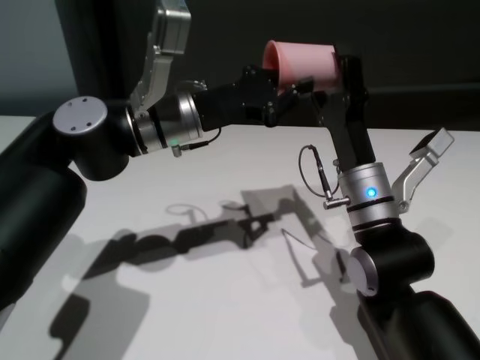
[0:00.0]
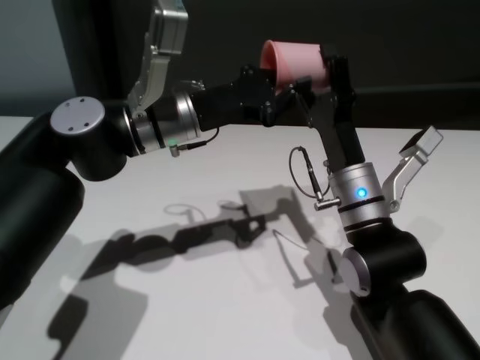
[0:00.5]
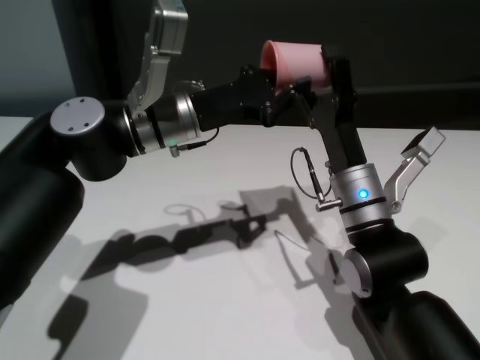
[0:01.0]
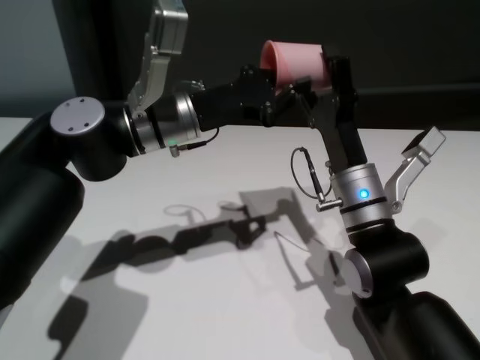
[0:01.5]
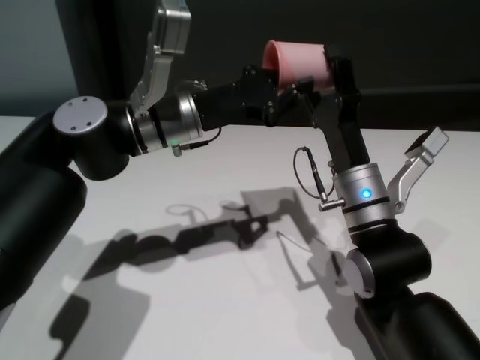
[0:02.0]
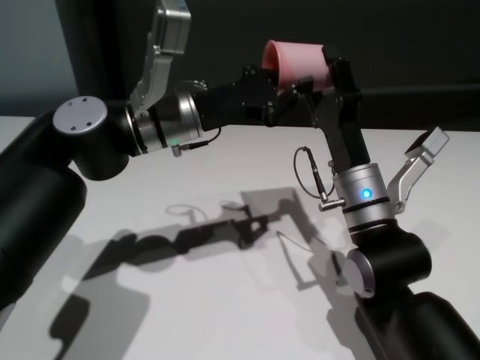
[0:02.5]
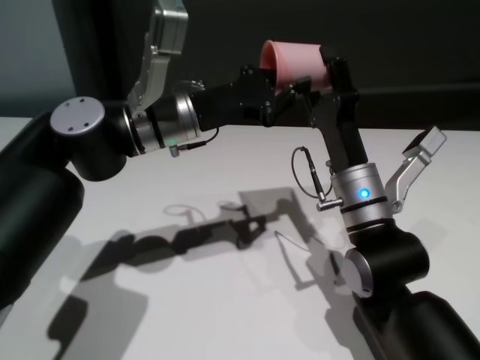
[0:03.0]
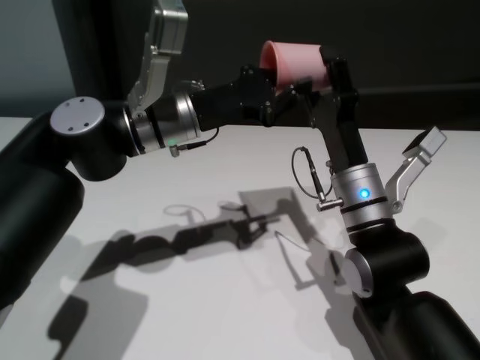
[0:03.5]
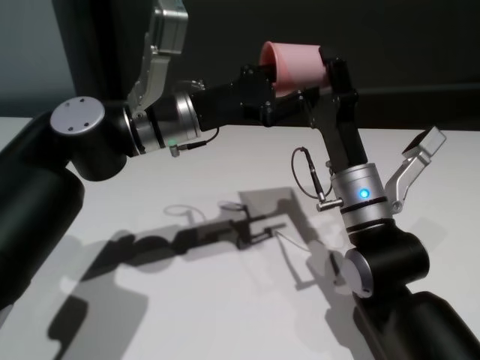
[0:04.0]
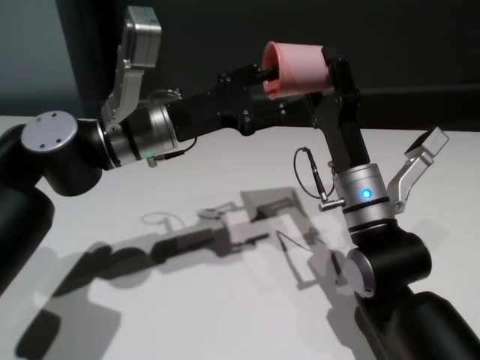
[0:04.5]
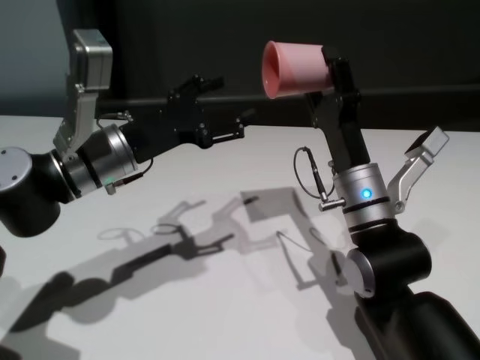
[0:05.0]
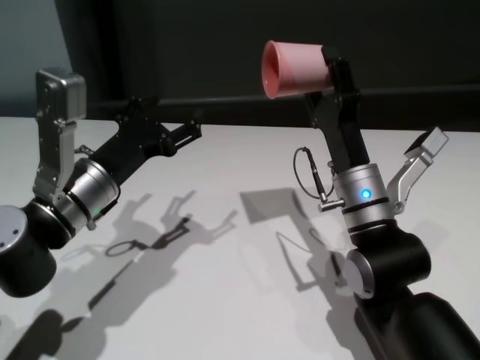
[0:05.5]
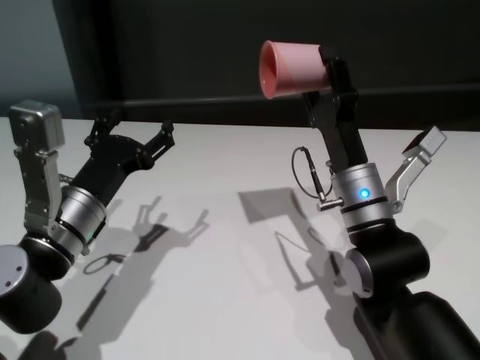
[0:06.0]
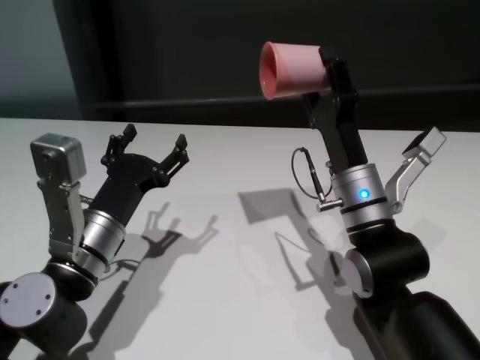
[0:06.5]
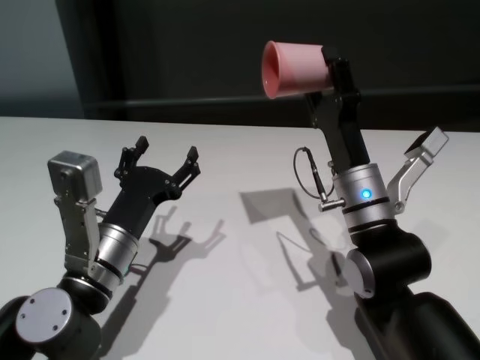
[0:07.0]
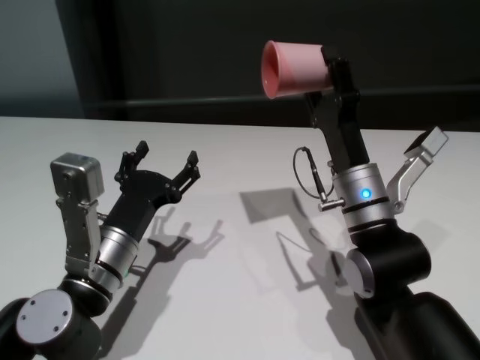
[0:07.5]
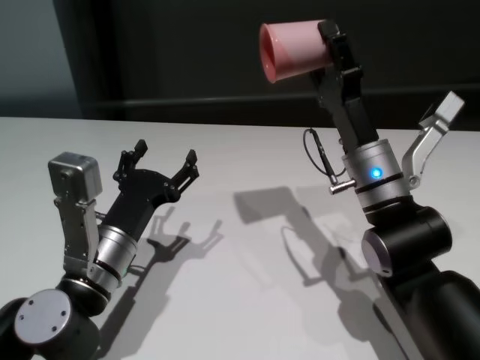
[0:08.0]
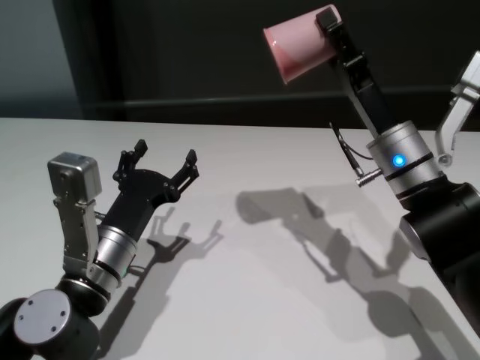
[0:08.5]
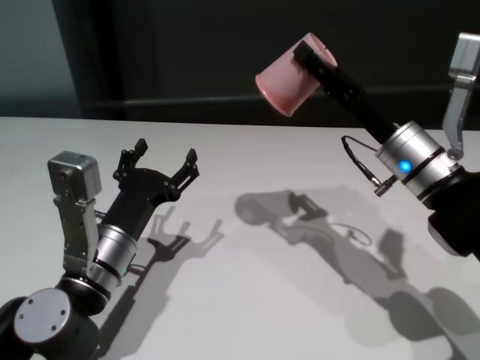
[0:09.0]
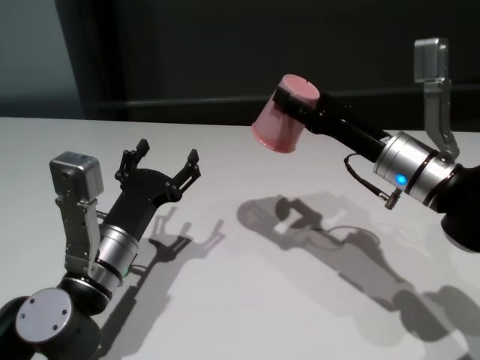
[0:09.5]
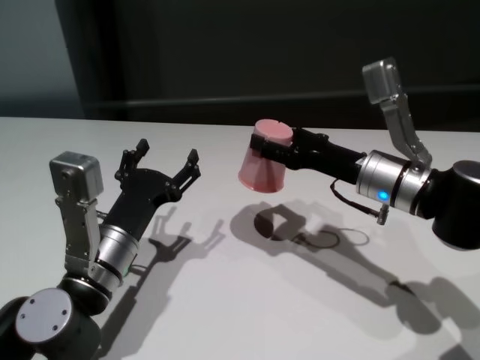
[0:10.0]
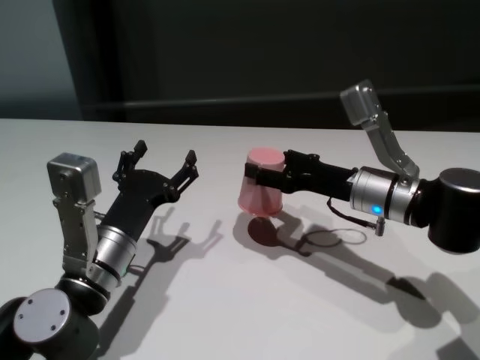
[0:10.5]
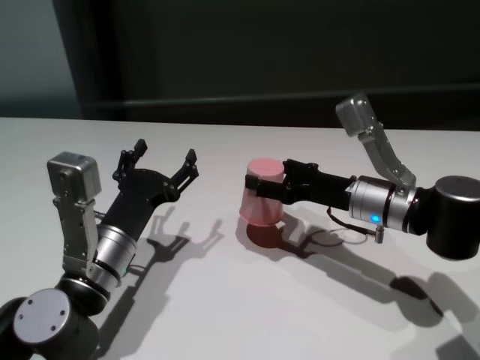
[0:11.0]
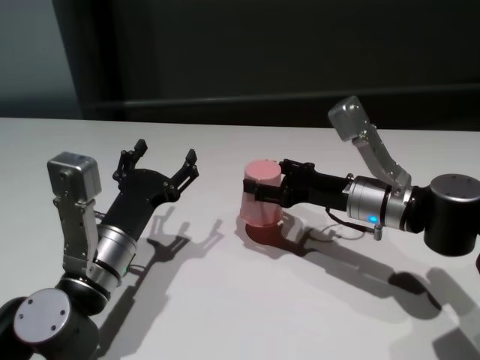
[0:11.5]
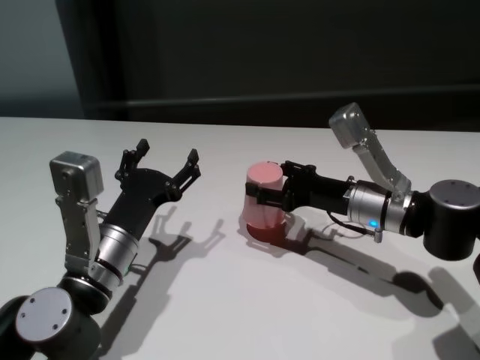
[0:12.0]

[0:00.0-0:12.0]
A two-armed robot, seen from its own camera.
Task of the whole recording: On the white table pick up the cup with one hand and transfer it to the other hand before turning it over.
Step, 0:00.0 to 0:04.5: Pass the cup to the right gripper.

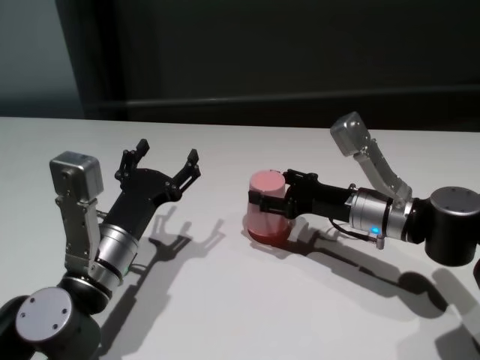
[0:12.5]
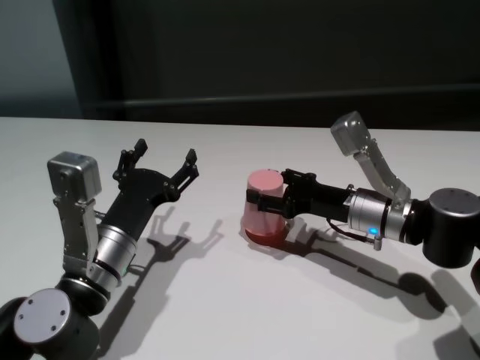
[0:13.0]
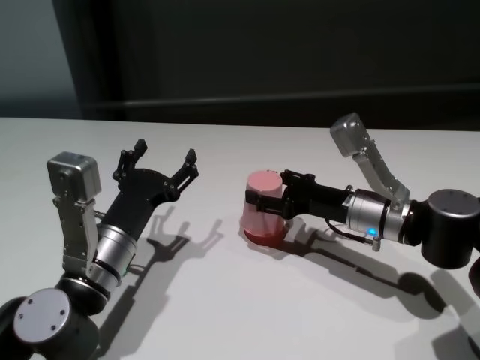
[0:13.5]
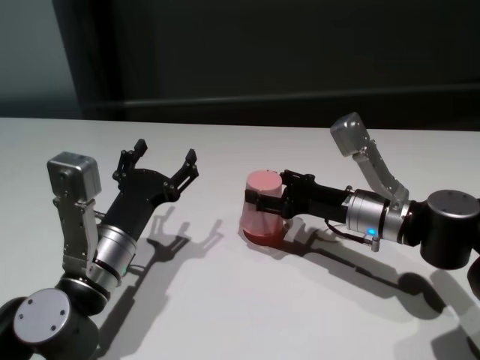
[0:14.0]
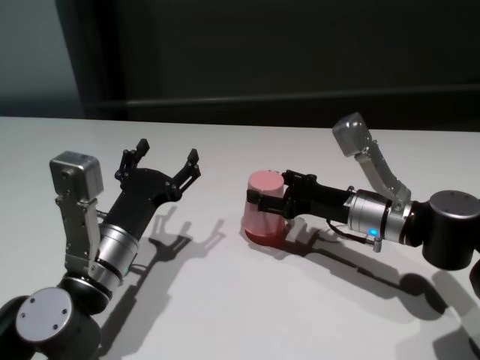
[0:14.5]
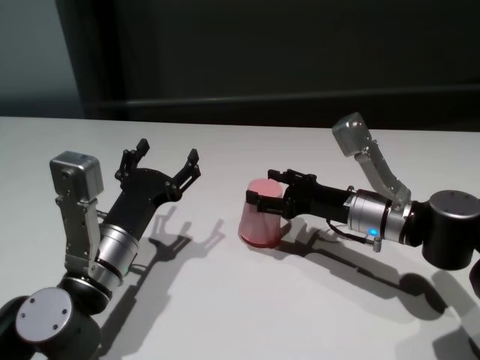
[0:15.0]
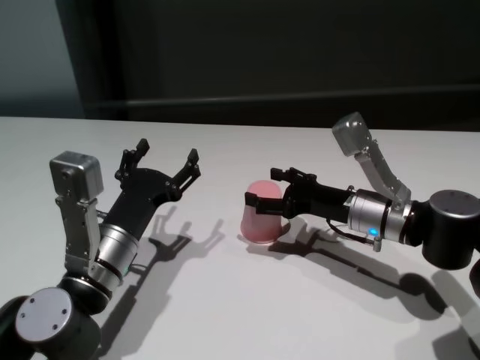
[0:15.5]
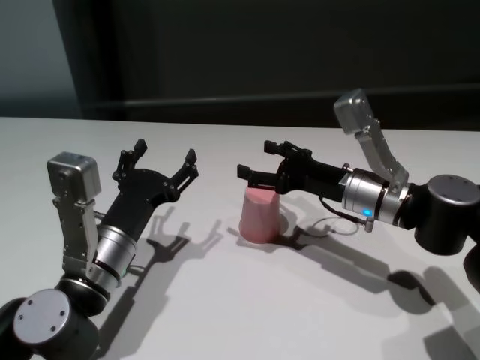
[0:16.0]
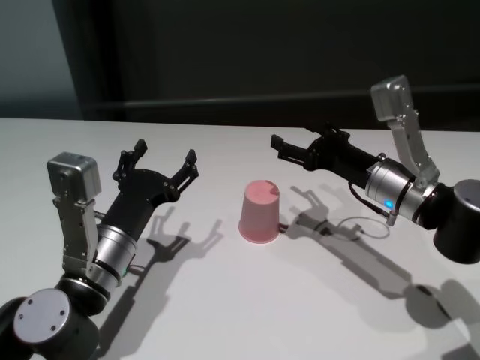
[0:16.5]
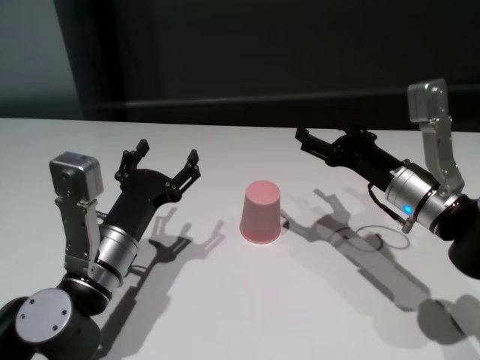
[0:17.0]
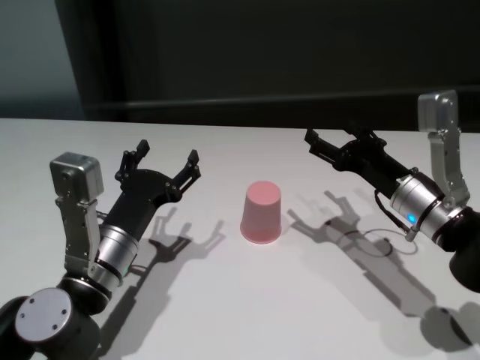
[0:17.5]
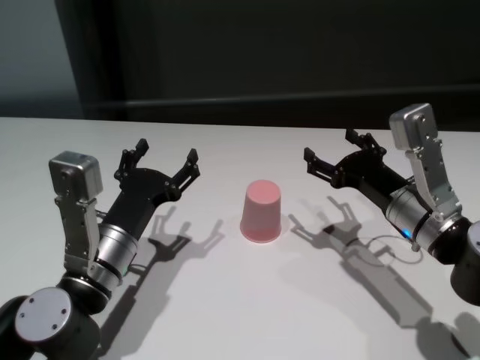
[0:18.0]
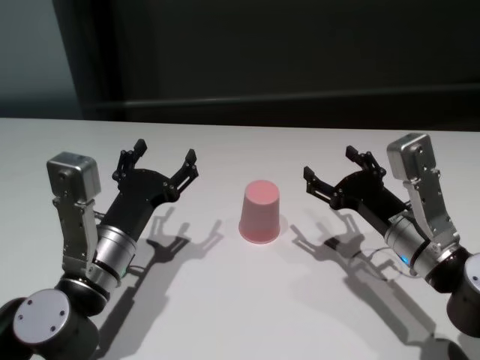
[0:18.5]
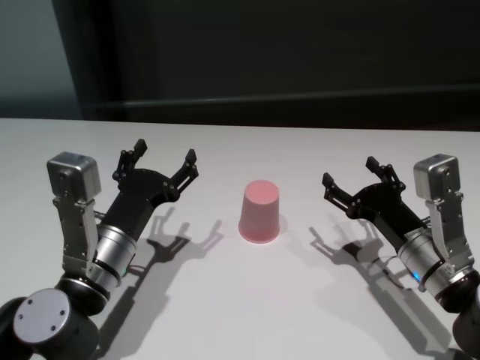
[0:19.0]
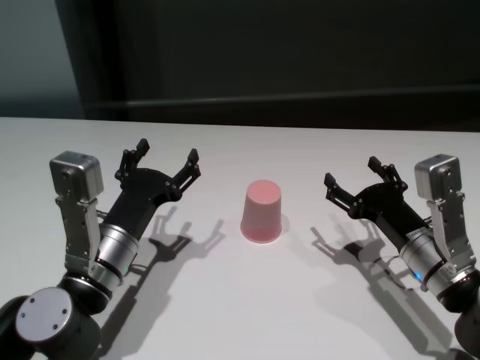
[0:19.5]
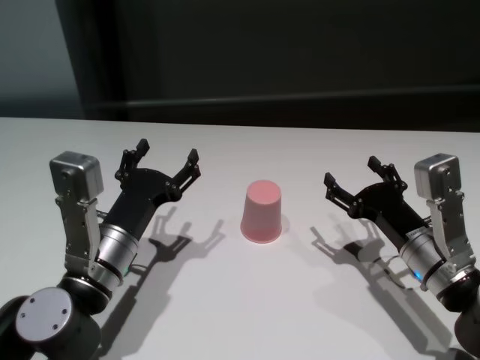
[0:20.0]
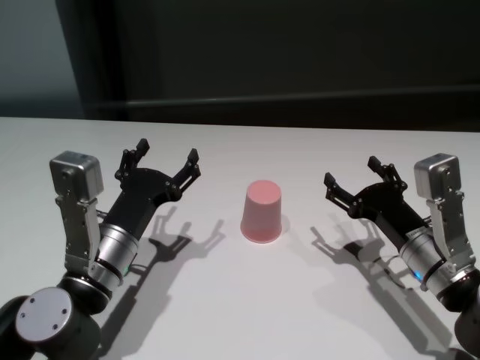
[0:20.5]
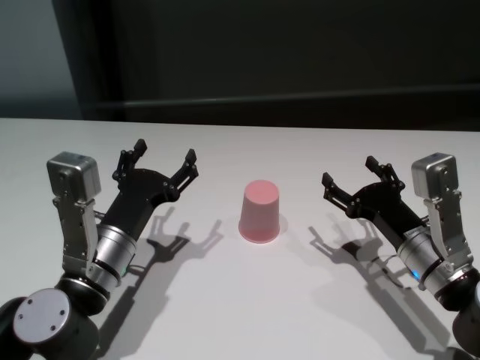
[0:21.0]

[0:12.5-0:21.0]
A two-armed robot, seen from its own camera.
Task of the whole recording: On the white table pick up the cup with one hand and transfer it to the other hand before turning it over.
Step, 0:12.5 to 0:15.5: Place the cup on the table with right gripper.
